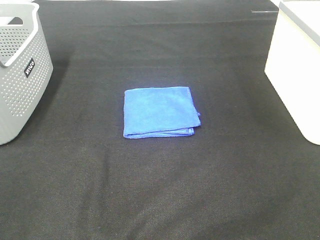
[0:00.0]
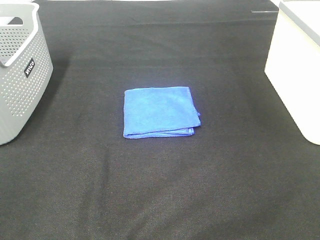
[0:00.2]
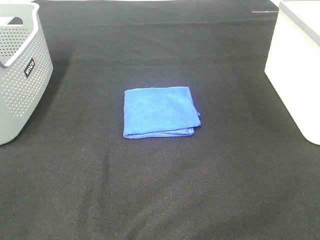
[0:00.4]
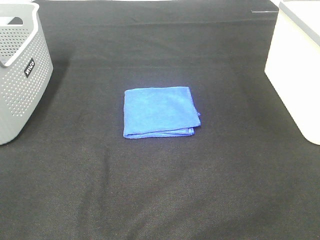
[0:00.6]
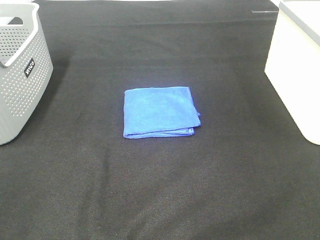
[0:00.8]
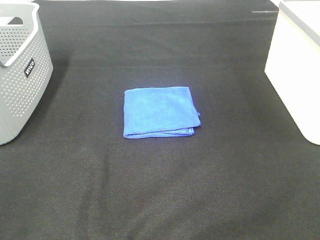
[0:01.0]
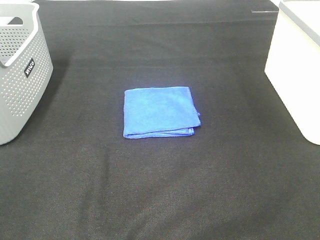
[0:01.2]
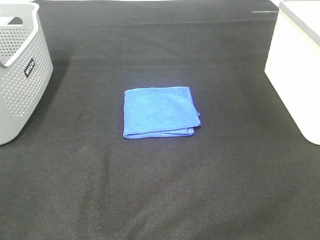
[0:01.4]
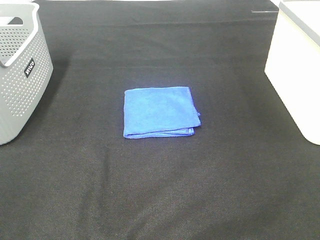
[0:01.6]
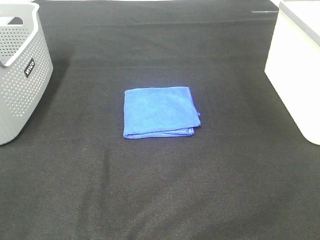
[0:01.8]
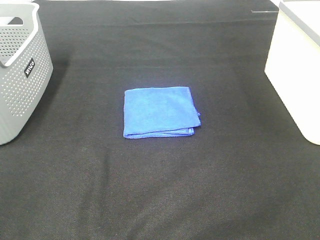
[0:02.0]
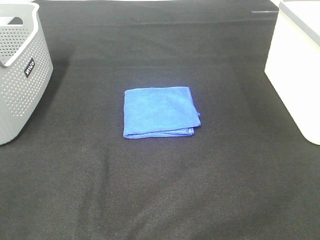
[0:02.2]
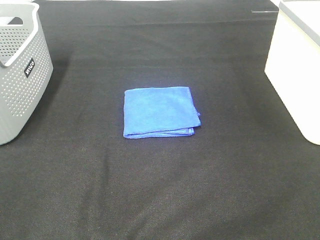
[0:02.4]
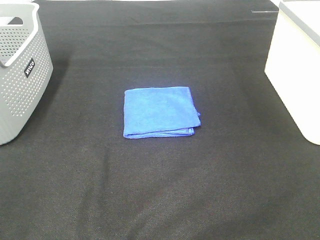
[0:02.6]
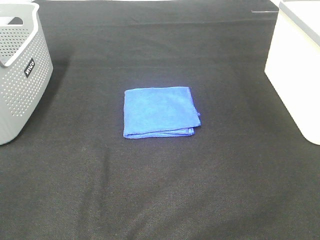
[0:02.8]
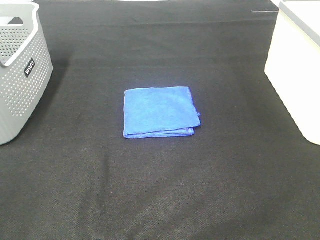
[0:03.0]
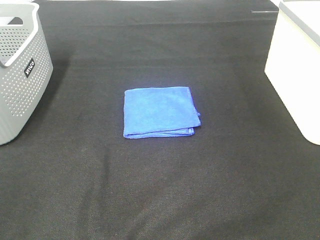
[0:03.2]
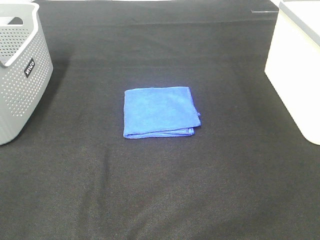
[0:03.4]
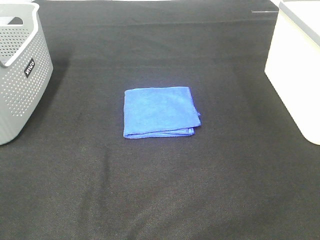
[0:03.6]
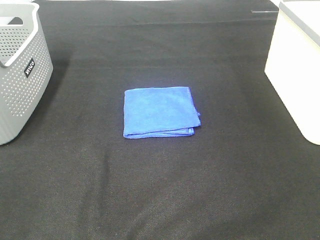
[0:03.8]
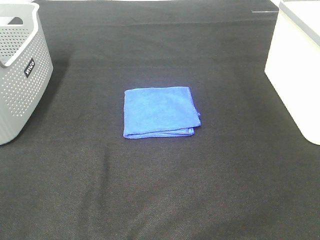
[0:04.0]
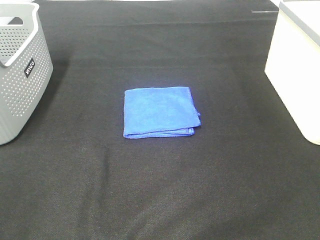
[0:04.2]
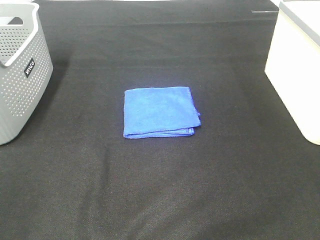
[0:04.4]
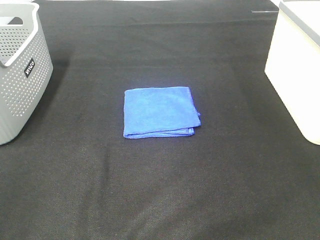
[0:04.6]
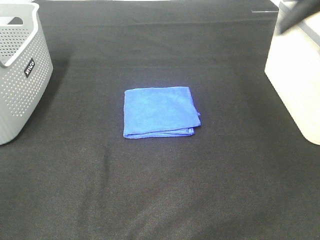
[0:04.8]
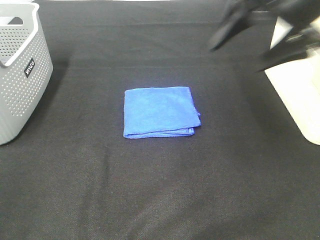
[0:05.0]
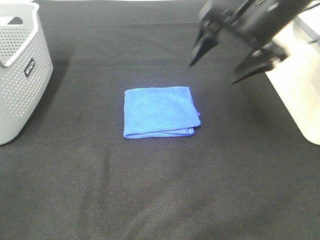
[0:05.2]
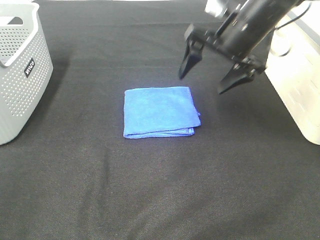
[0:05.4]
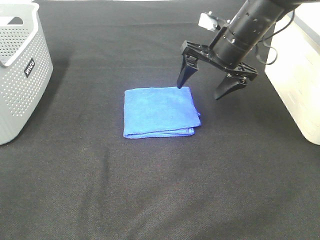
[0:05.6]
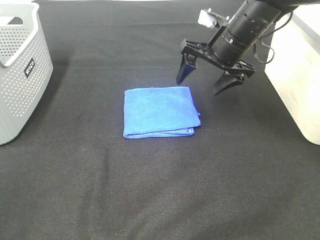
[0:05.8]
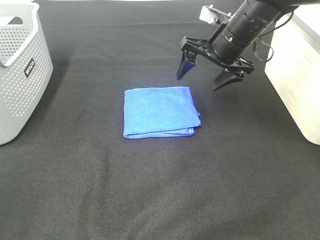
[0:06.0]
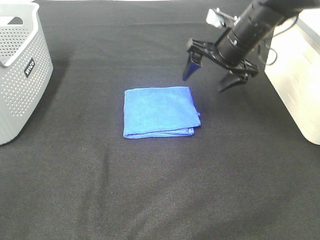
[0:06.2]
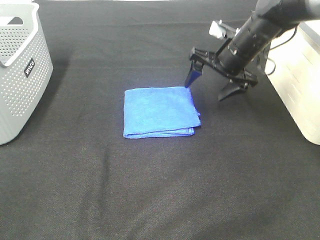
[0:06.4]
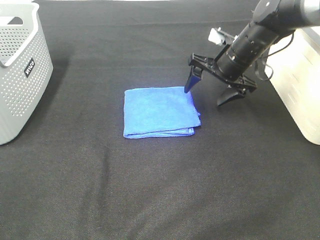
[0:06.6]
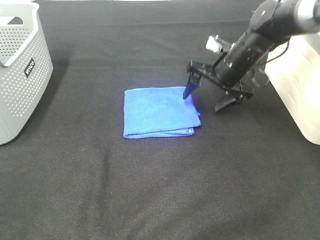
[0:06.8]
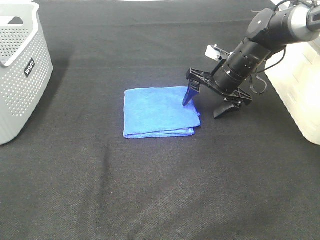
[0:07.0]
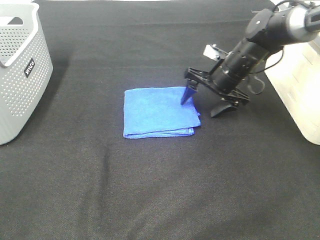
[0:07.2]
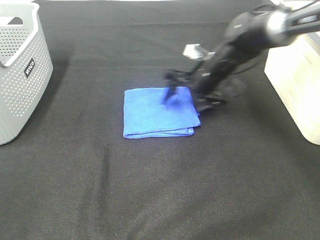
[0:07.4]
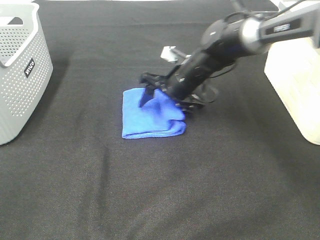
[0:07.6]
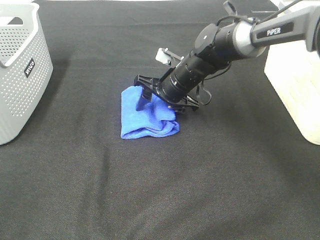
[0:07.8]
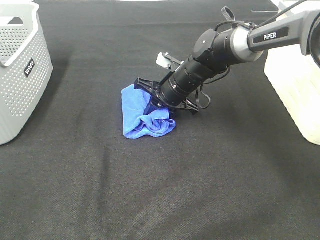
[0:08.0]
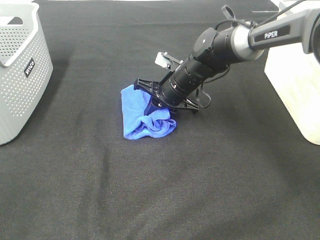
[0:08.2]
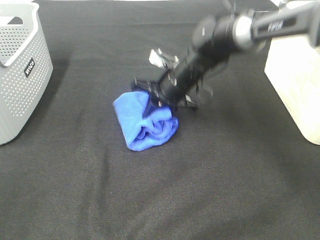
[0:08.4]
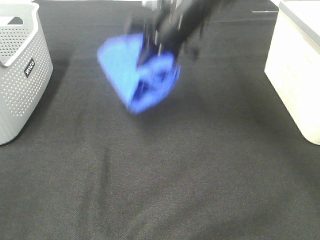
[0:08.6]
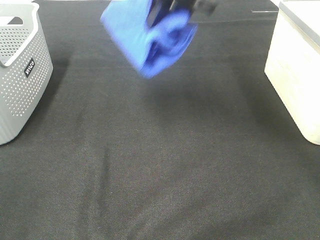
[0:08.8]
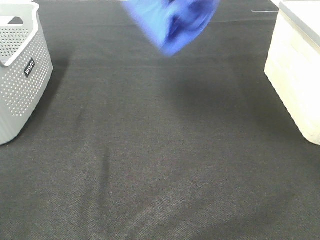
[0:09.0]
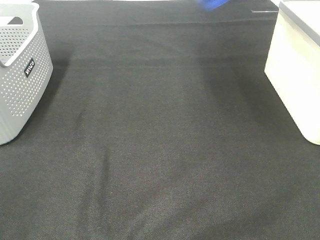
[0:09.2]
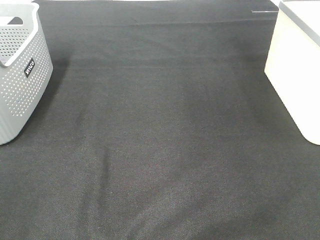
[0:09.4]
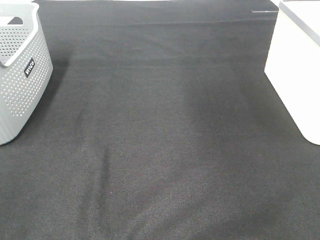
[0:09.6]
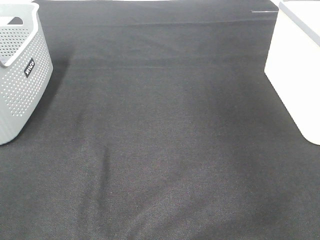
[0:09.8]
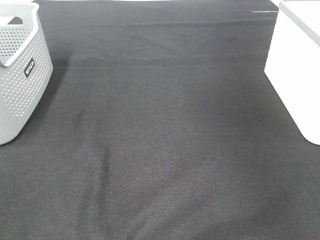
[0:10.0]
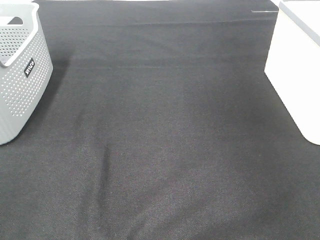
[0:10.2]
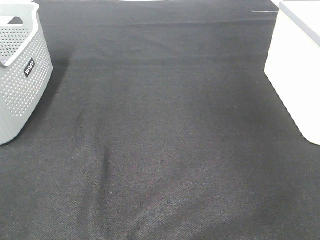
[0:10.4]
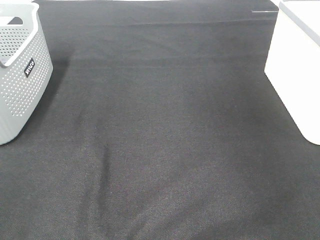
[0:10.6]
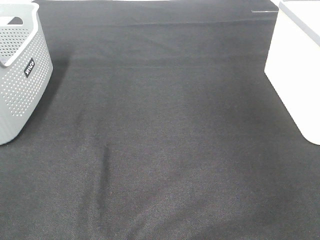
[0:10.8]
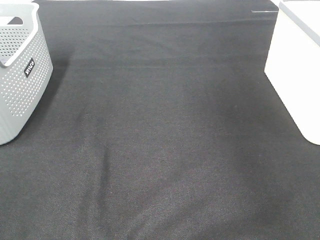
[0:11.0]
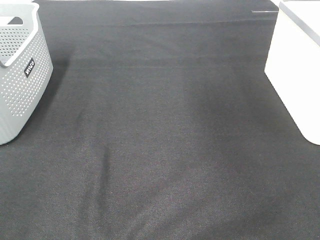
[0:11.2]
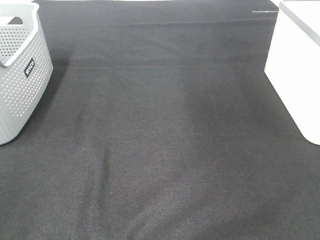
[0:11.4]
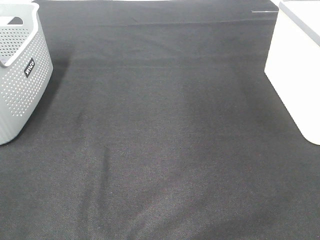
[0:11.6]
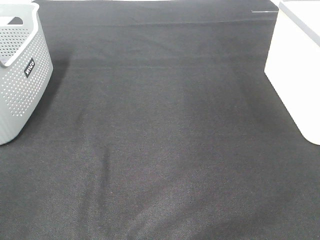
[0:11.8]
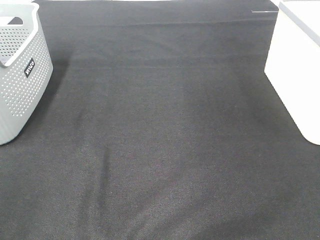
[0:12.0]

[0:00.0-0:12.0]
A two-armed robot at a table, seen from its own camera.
Step, 0:00.0 to 0:08.0: Right hand: grab the folded blue towel.
Step, 0:08.2 to 0:10.6: Right hand: place the blue towel in right basket.
0:00.0 to 0:03.0: Both grippers stay about where they are.
0:04.4 to 0:06.0: The right gripper shifts approximately 35 cm forward, downward and to the left.
0:06.0 to 0:07.6: The right gripper heads downward and to the left, covering roughly 15 cm.
0:07.6 to 0:09.0: The right gripper shifts some 30 cm upward, and closes up.
0:09.0 to 0:10.4: The right gripper goes about 35 cm to the right, and opens.

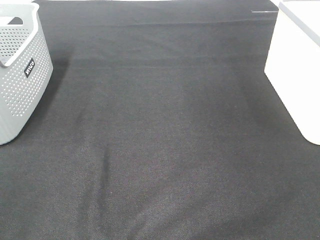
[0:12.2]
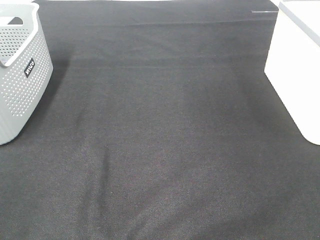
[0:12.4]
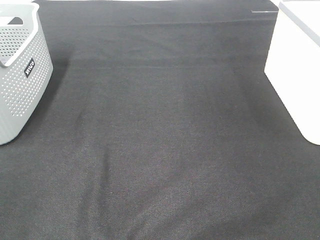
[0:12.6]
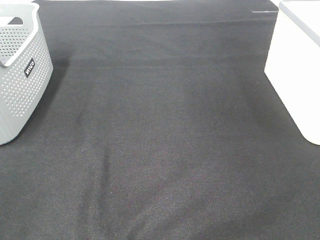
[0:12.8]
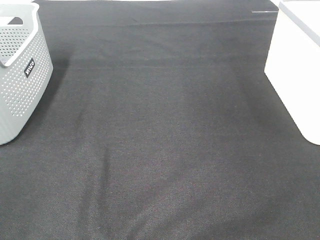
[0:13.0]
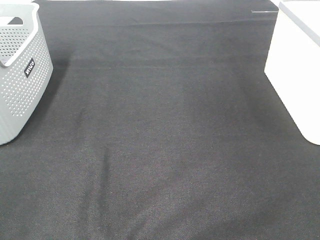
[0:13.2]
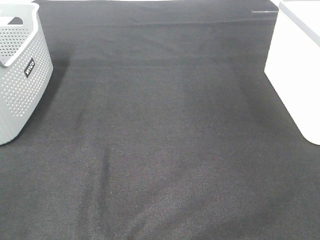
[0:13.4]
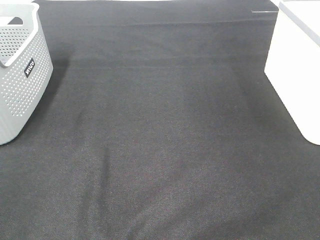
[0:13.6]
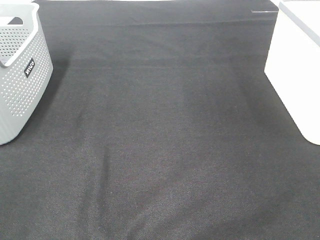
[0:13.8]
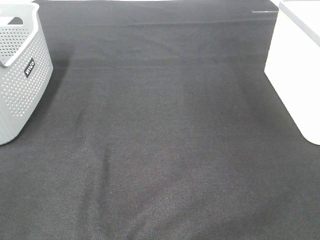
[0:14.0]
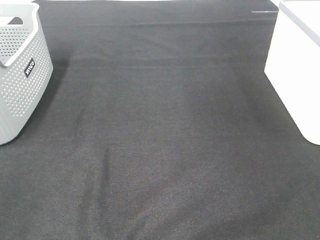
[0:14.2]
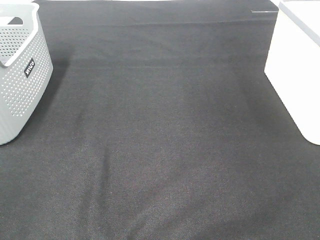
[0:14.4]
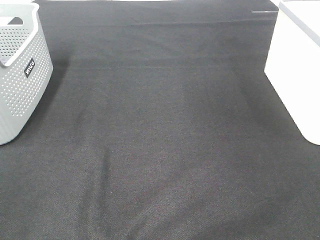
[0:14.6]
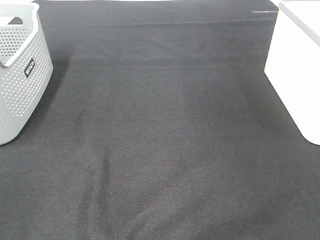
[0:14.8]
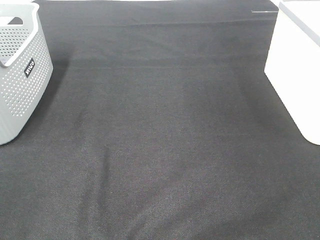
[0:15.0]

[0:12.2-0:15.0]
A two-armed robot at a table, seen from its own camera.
0:13.6 to 0:15.0: Neither gripper changes place.
